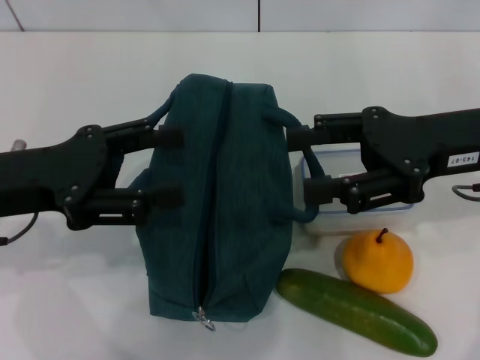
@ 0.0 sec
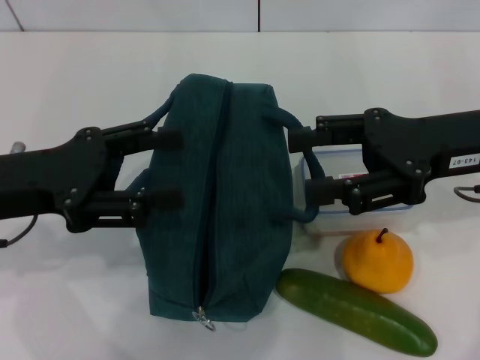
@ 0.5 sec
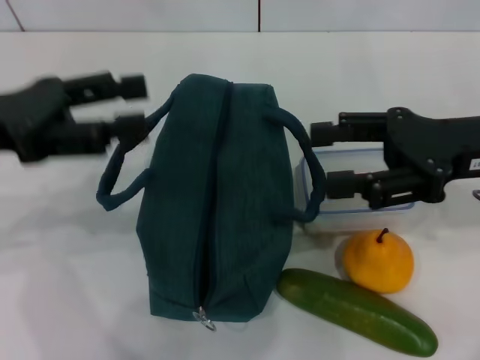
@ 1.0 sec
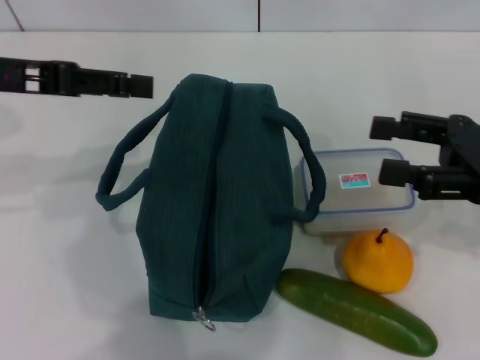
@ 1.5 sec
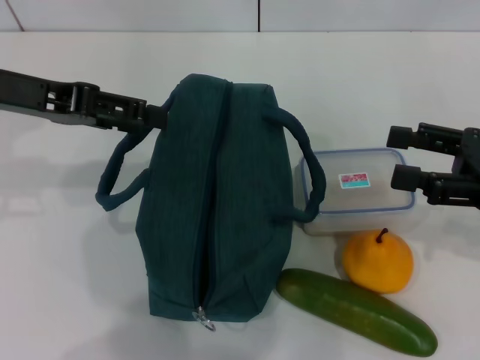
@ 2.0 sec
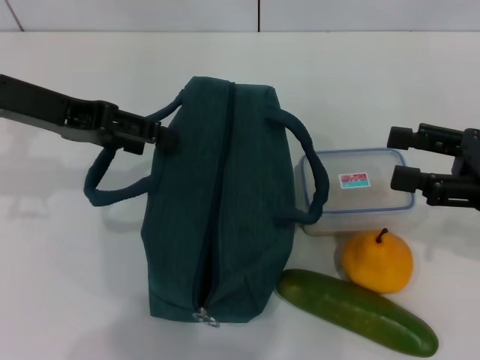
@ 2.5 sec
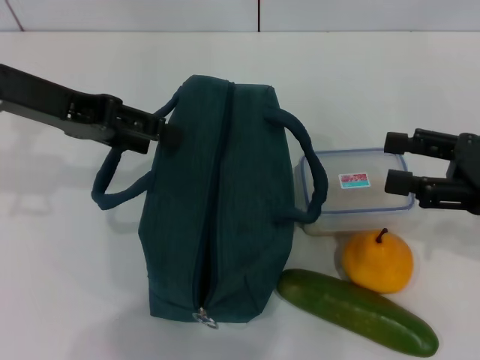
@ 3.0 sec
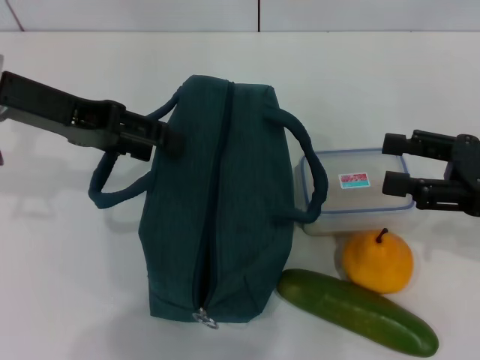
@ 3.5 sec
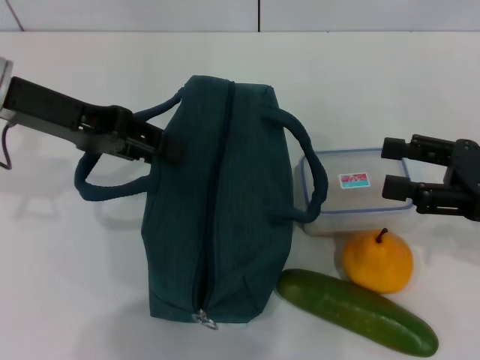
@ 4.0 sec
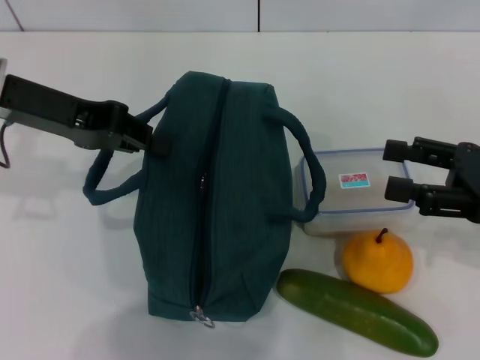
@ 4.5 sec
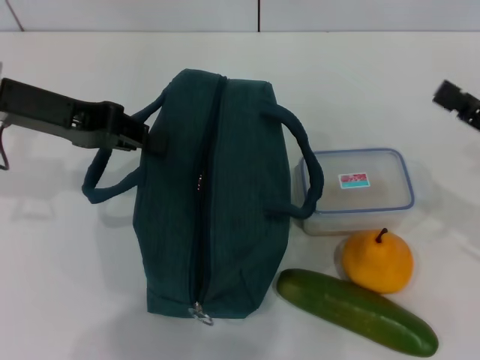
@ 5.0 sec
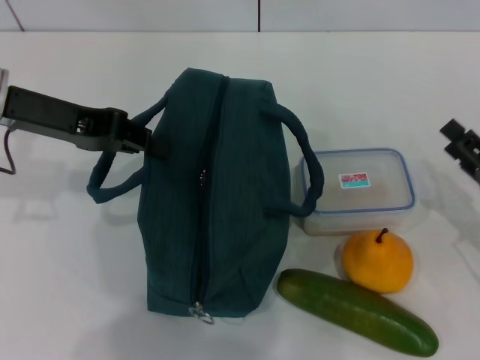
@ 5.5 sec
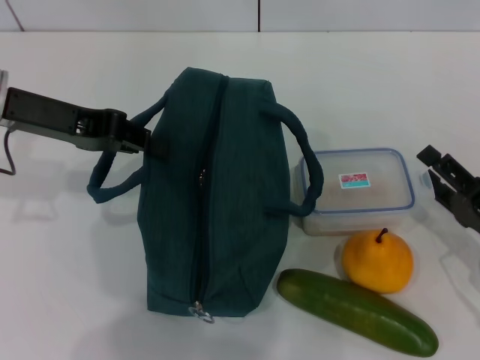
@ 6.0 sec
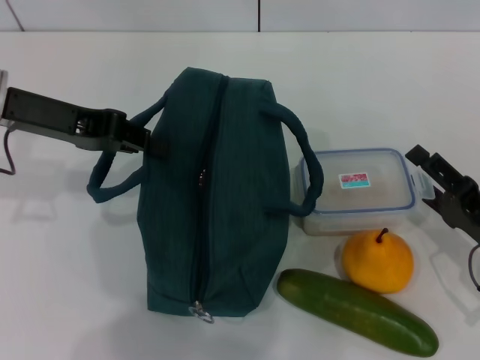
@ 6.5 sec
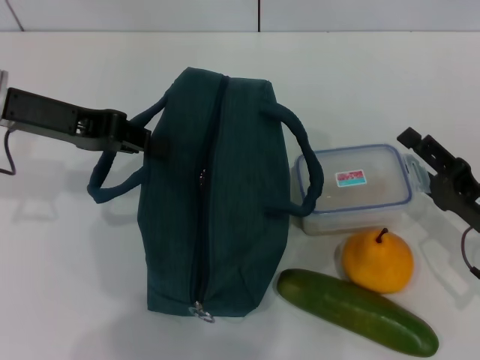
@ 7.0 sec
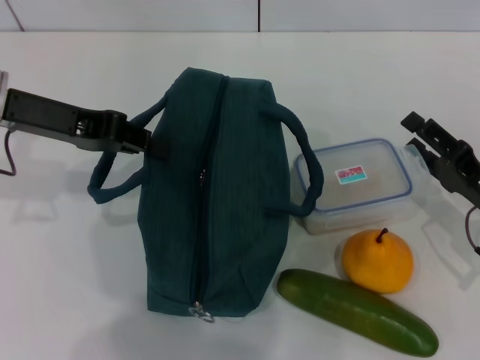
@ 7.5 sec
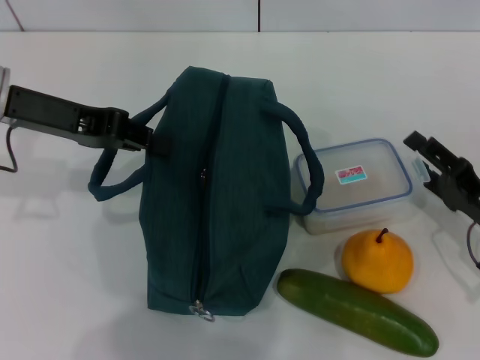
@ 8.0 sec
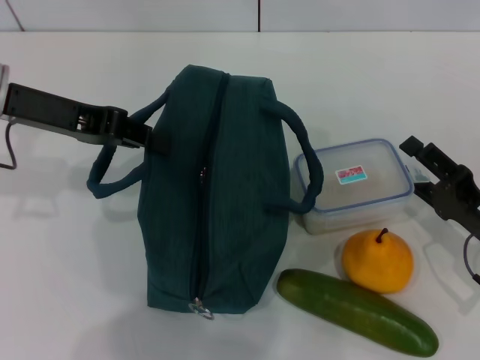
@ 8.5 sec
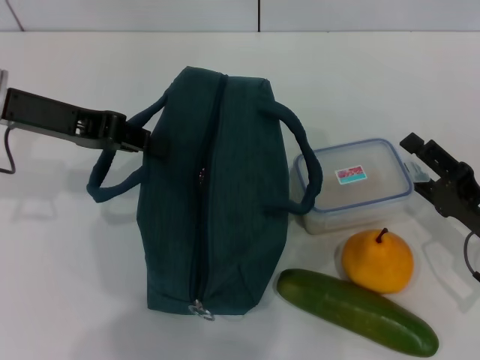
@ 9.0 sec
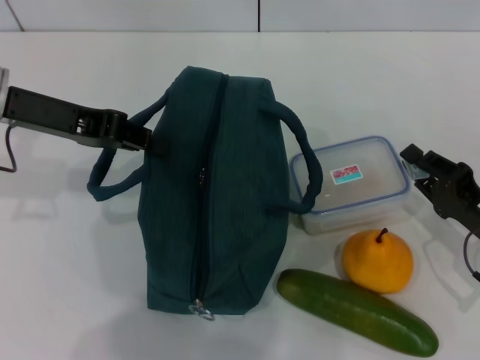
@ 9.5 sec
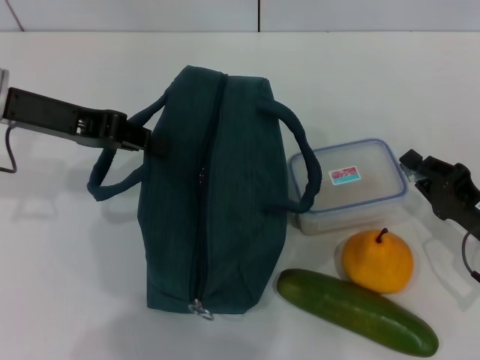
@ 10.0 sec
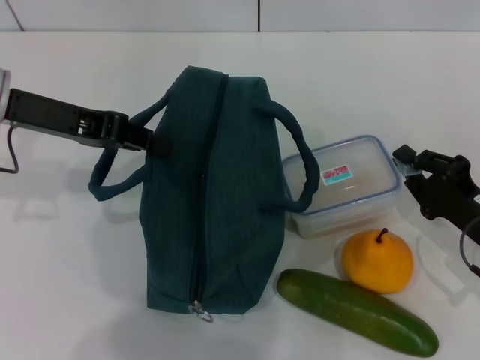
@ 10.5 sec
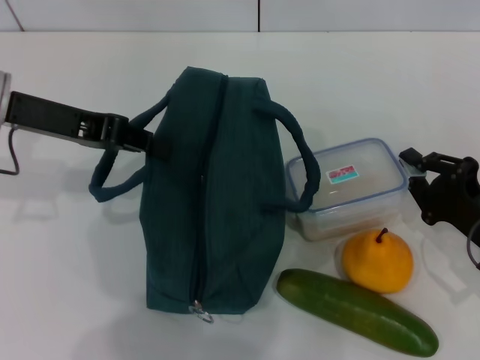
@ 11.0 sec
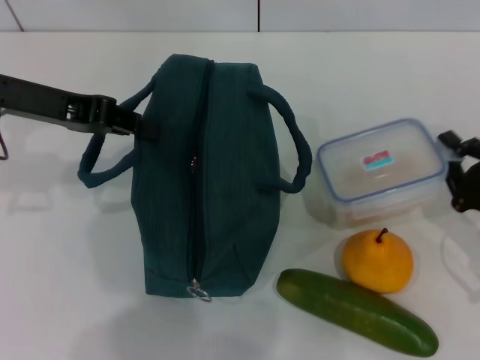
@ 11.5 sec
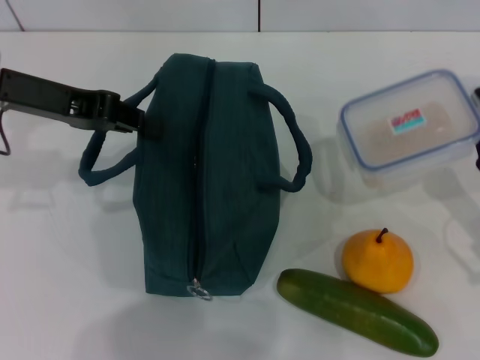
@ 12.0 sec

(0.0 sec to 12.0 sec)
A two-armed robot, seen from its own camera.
Step, 0.0 sec - 5.0 sec: Hold the lunch bag with your left hand.
Step, 5.5 sec - 10.5 sec: Pick up the lunch box with your right hand.
0.0 sec - 2.0 sec: The left gripper shifts some 10 cm forward and upward; the right gripper moves to the right, about 10 cm.
2.0 sec - 4.0 sec: The grippers stay close to where they were, moving slightly.
4.0 sec - 6.0 sec: The left gripper closes, while the right gripper travels downward by roughly 10 cm.
6.0 sec - 8.0 sec: The grippers stay close to where they were, moving slightly.
8.0 sec - 10.0 sec: The right gripper closes its fingers.

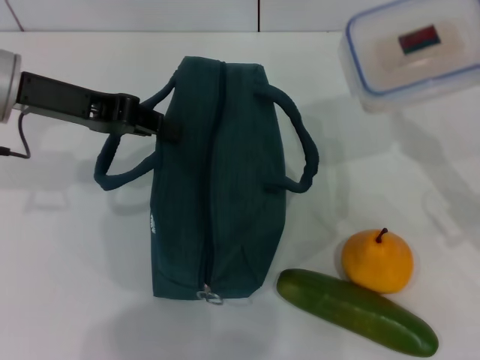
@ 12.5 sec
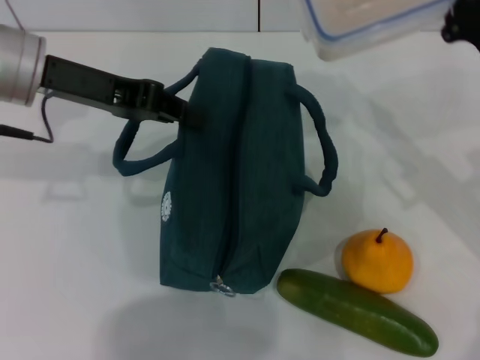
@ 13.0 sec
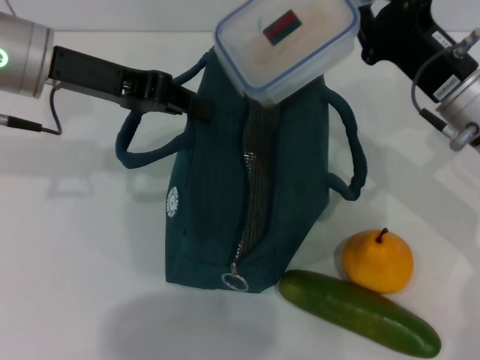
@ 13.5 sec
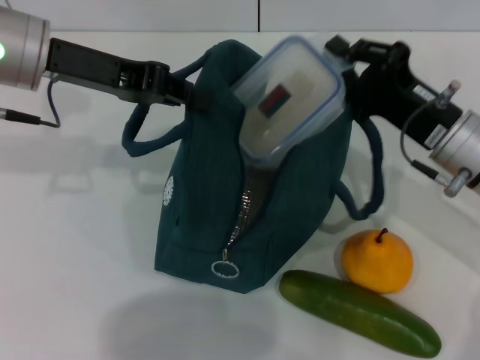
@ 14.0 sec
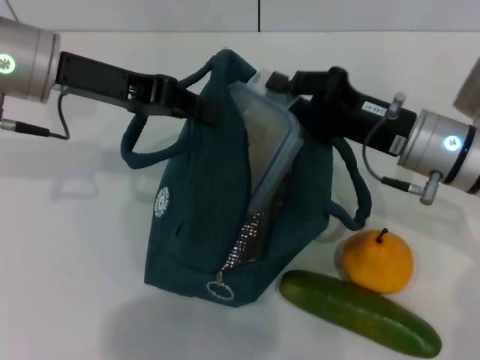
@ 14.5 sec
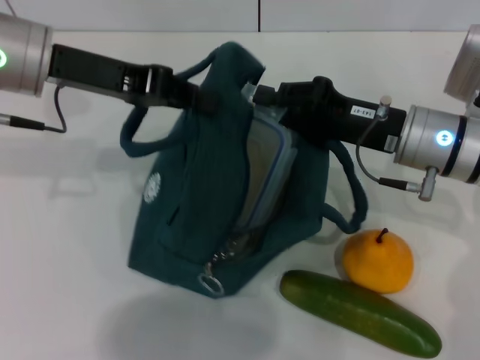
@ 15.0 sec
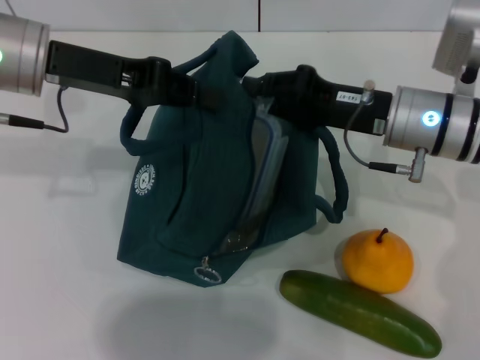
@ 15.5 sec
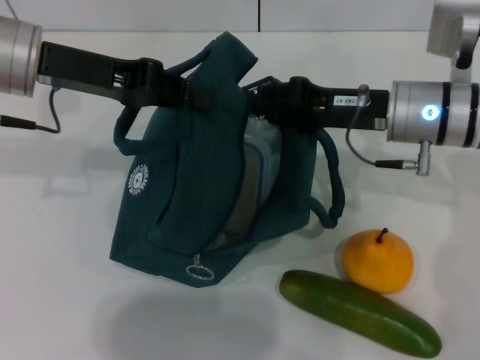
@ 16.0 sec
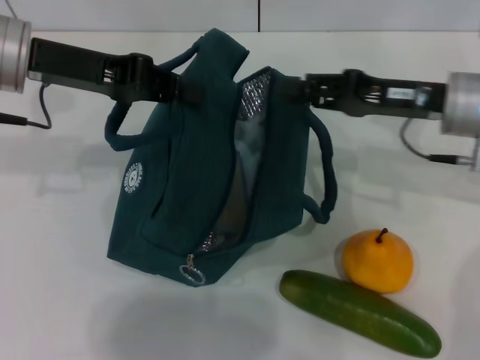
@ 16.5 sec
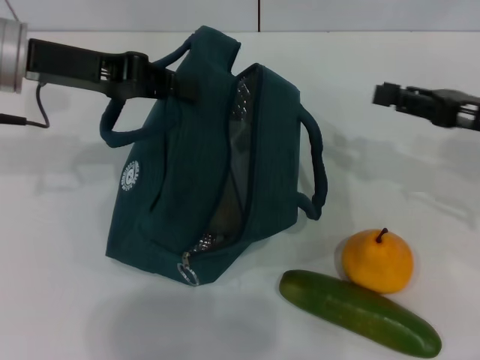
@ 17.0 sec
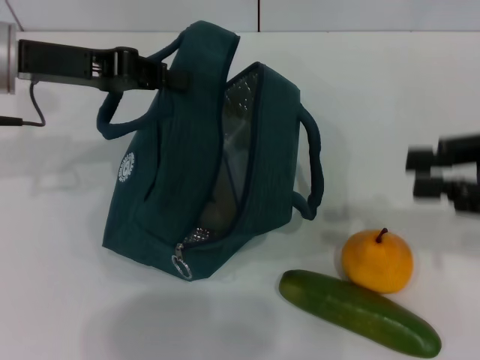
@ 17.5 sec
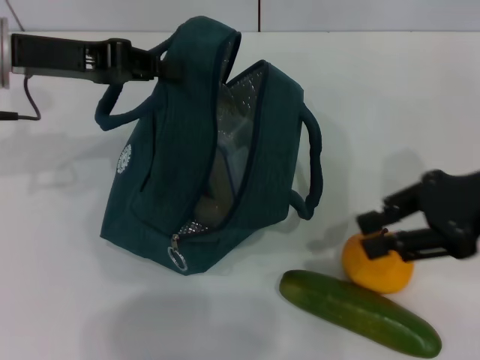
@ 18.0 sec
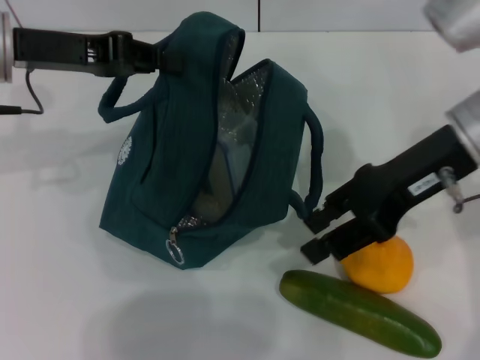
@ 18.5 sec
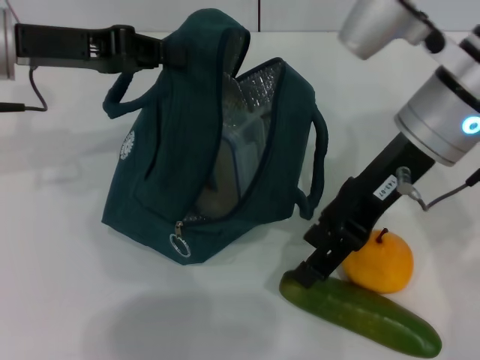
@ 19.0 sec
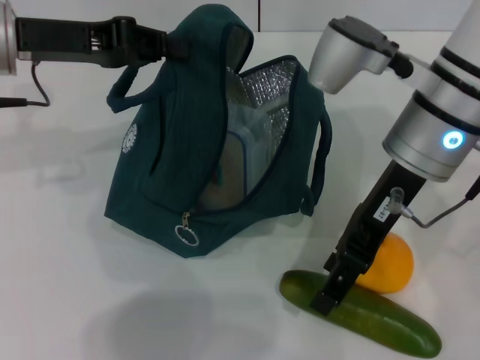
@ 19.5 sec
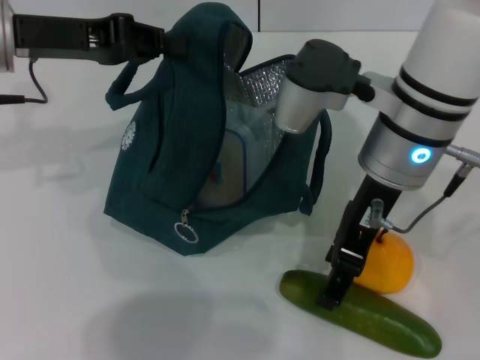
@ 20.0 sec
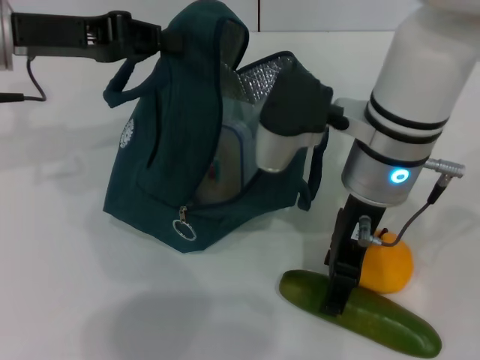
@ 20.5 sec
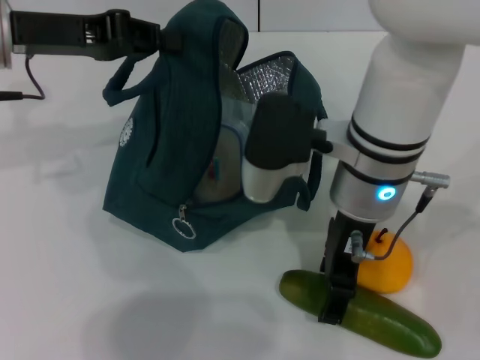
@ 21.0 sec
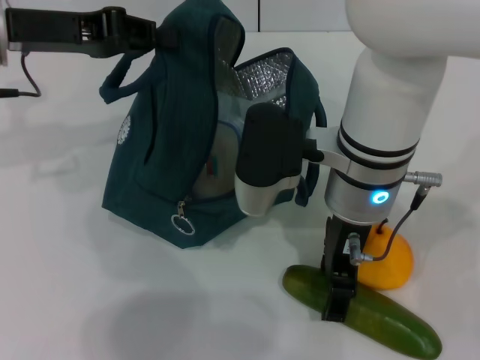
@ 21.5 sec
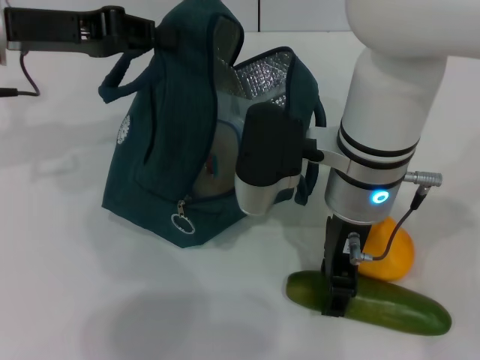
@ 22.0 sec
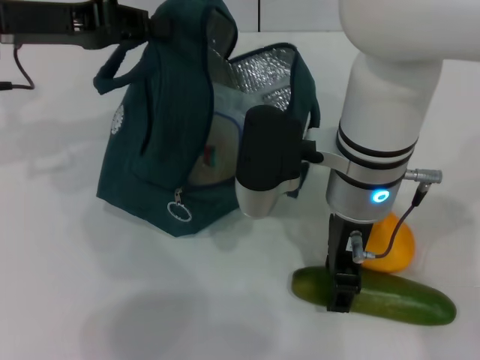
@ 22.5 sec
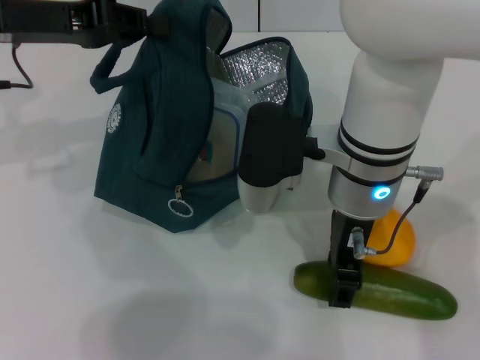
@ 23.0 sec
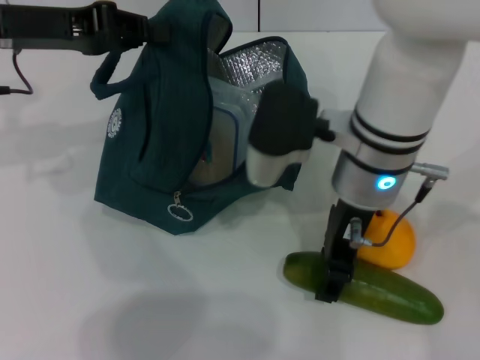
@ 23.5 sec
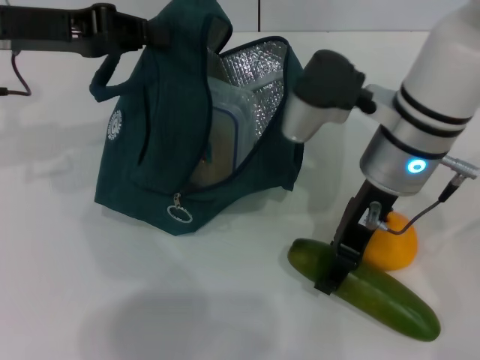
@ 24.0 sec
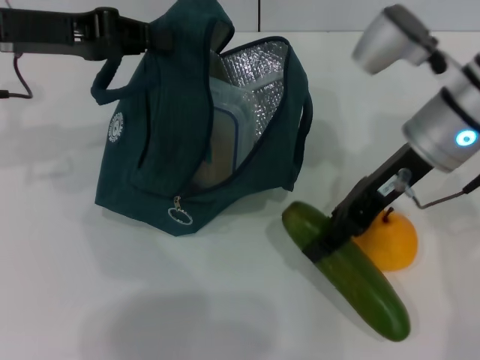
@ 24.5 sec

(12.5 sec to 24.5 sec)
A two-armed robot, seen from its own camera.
Step, 12.5 sec - 16.0 sec: Place the lunch box into the lunch bag with your right hand.
Step, 16.5 sec - 22.0 sec: Pick up the cucumber with your right hand.
12.5 sec - 14.5 sec: The right gripper is displaced to the left and forward by some 10 cm.
14.5 sec - 16.5 sec: The right gripper ends up some 5 cm from where it was.
16.5 sec - 18.5 sec: The right gripper travels upward by approximately 5 cm, and reaches approximately 10 cm to the right, then returns.
18.5 sec - 20.5 sec: The right gripper heads to the left, covering roughly 10 cm, and opens its fingers.
22.5 sec - 24.5 sec: The right gripper shifts approximately 10 cm to the right.

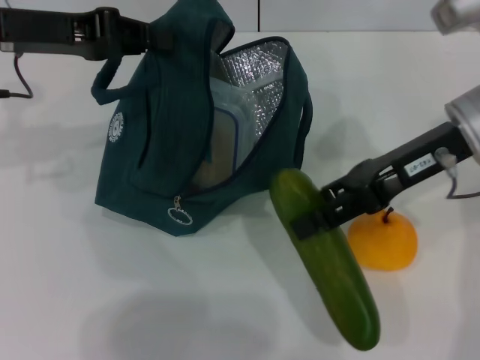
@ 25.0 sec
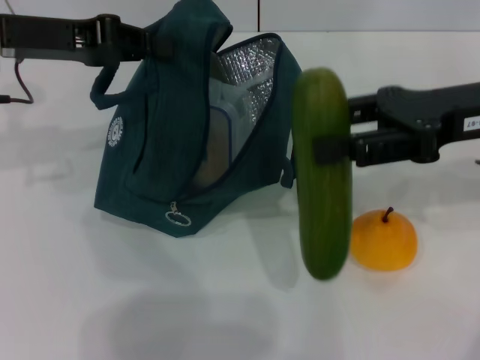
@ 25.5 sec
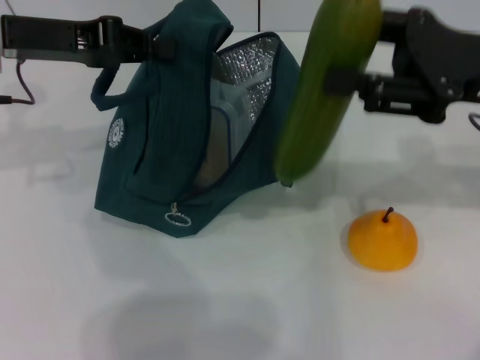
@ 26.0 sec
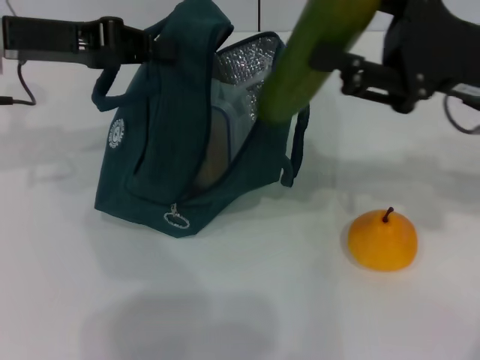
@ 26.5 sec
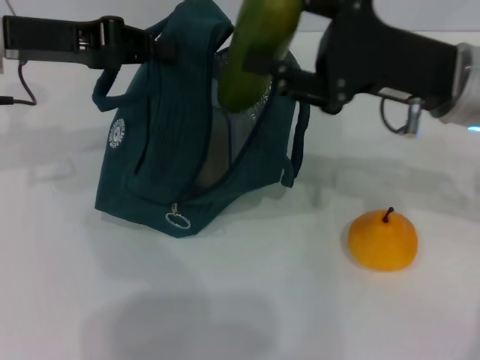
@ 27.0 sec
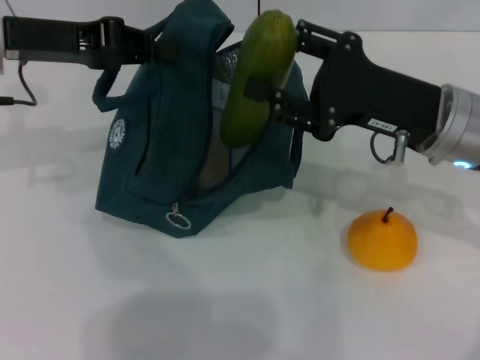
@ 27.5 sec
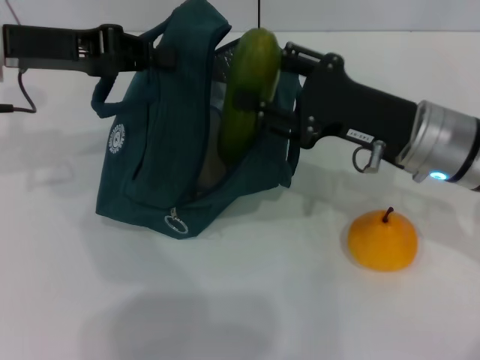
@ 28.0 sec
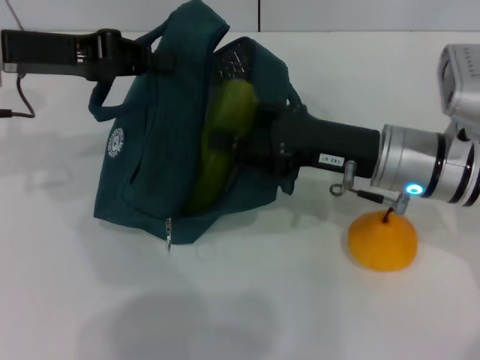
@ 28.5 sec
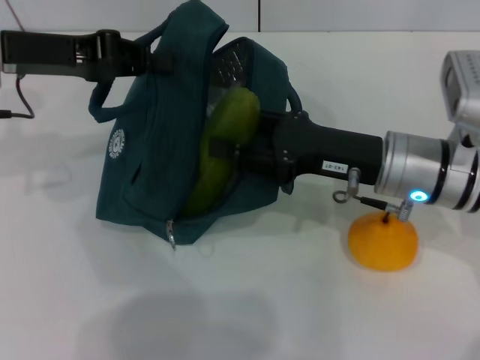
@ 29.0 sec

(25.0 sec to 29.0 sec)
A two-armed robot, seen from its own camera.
27.0 sec - 29.0 sec: The right gripper is displaced downward by some 5 cm.
